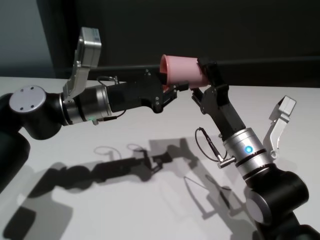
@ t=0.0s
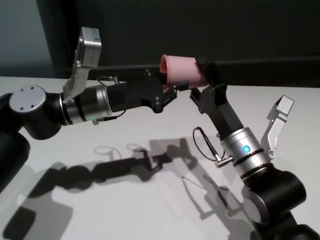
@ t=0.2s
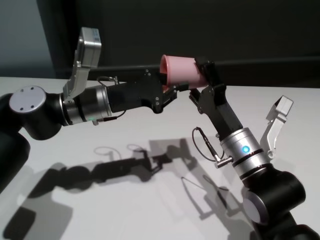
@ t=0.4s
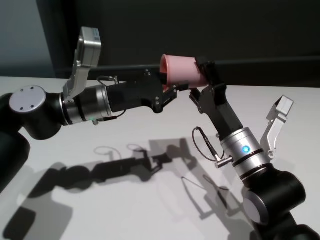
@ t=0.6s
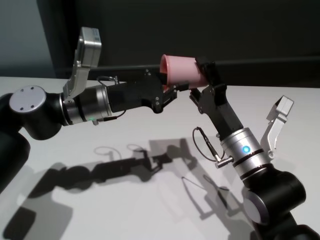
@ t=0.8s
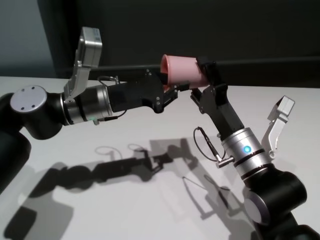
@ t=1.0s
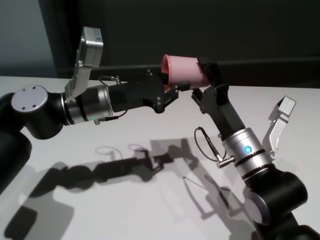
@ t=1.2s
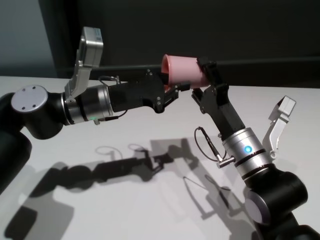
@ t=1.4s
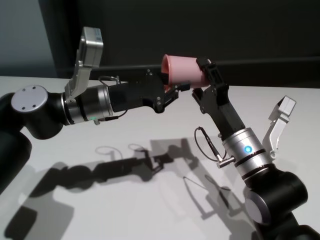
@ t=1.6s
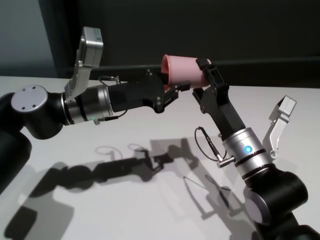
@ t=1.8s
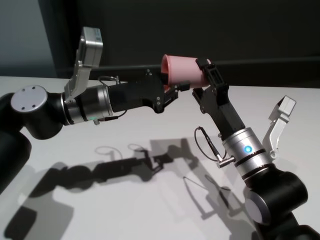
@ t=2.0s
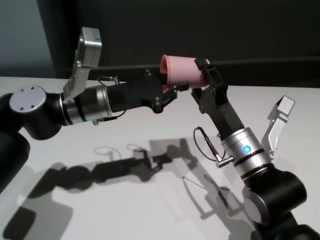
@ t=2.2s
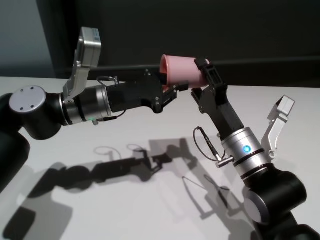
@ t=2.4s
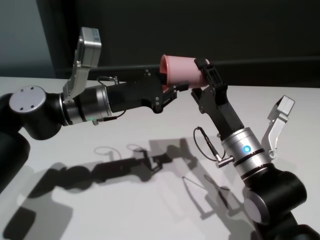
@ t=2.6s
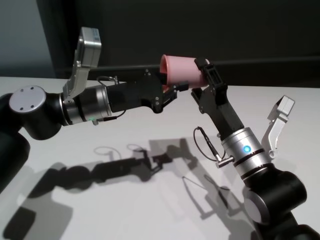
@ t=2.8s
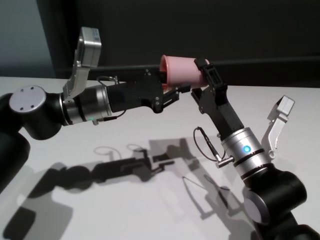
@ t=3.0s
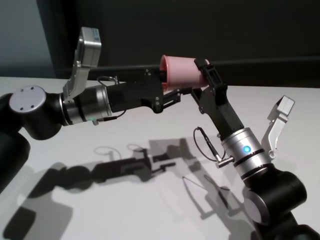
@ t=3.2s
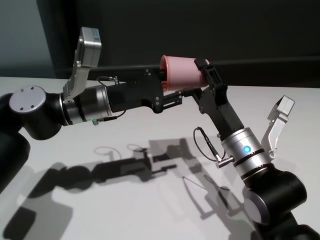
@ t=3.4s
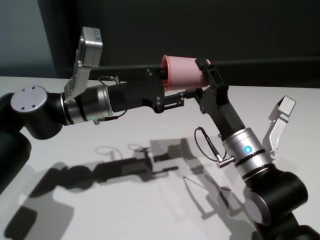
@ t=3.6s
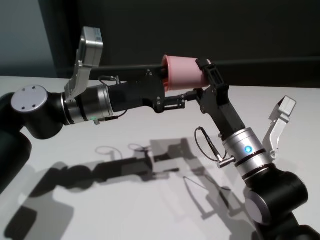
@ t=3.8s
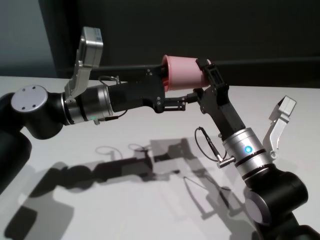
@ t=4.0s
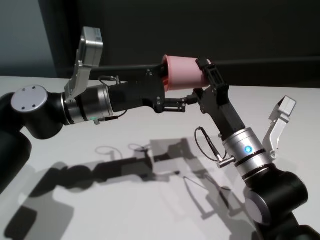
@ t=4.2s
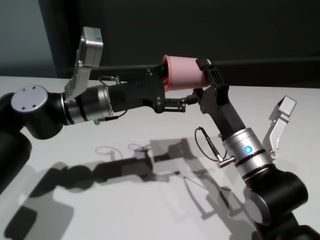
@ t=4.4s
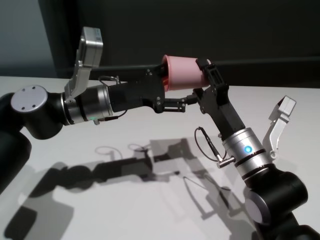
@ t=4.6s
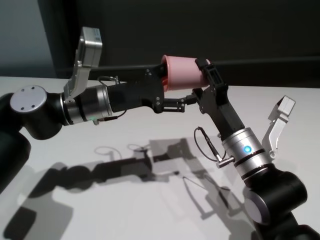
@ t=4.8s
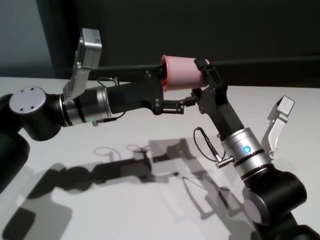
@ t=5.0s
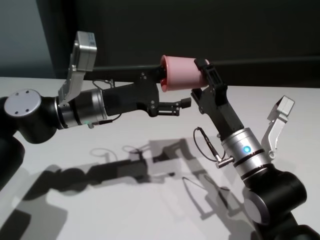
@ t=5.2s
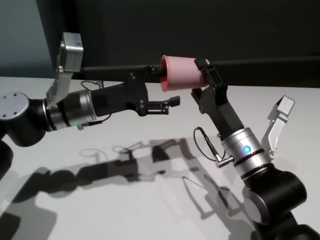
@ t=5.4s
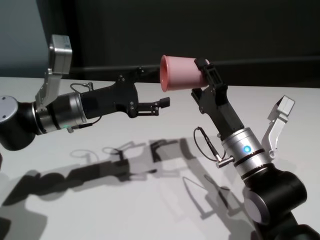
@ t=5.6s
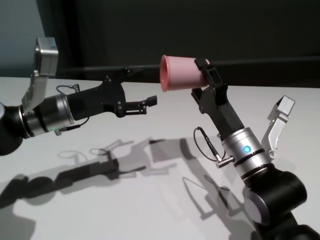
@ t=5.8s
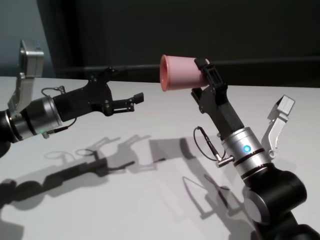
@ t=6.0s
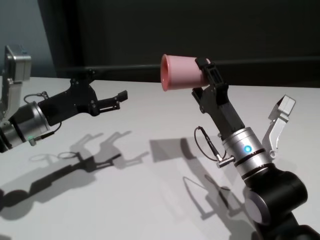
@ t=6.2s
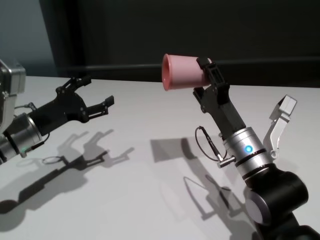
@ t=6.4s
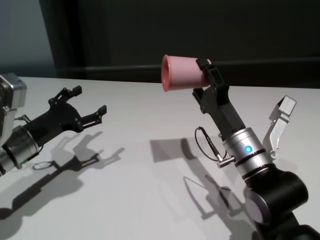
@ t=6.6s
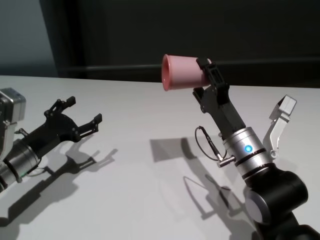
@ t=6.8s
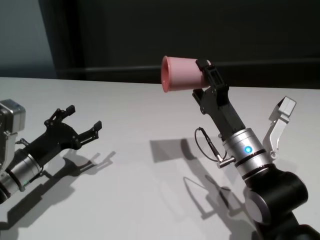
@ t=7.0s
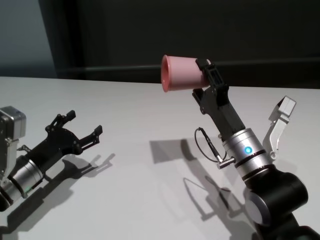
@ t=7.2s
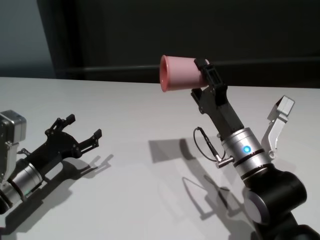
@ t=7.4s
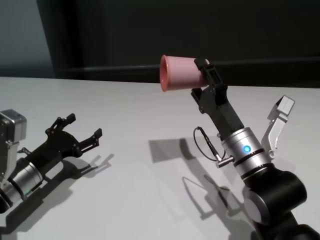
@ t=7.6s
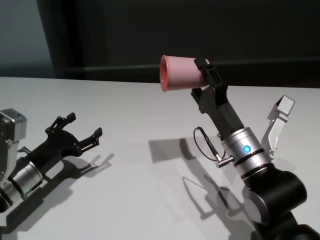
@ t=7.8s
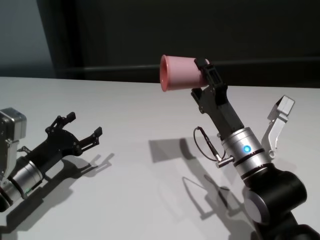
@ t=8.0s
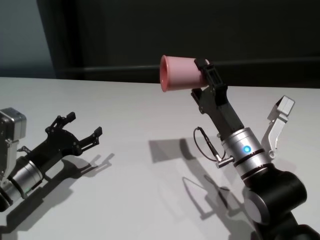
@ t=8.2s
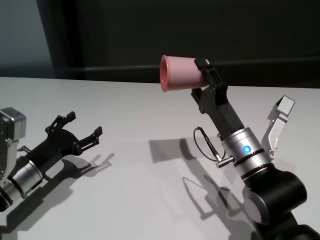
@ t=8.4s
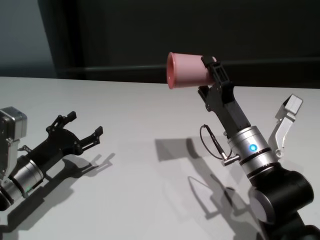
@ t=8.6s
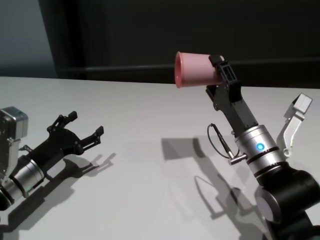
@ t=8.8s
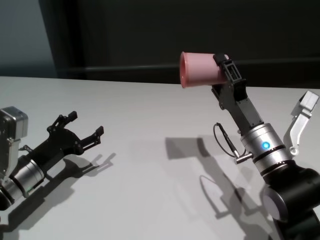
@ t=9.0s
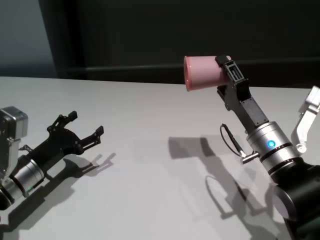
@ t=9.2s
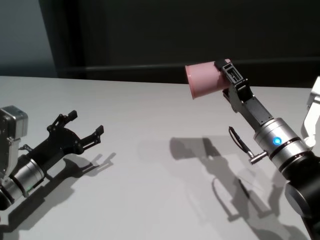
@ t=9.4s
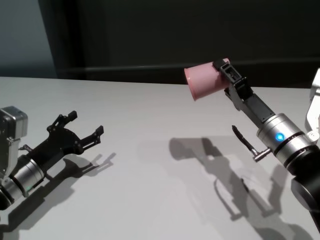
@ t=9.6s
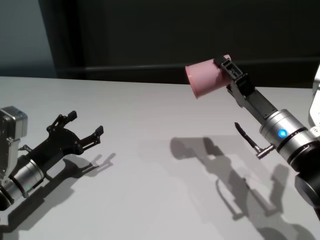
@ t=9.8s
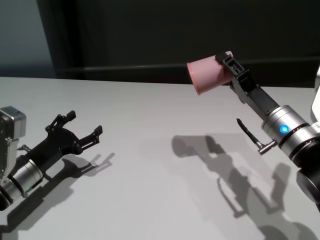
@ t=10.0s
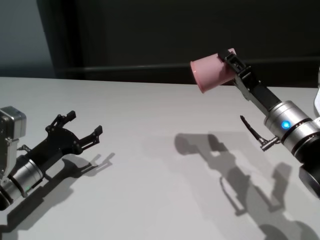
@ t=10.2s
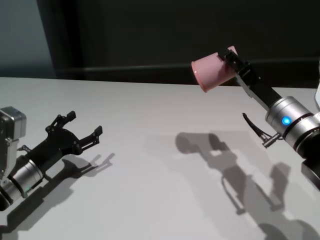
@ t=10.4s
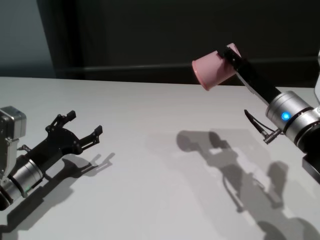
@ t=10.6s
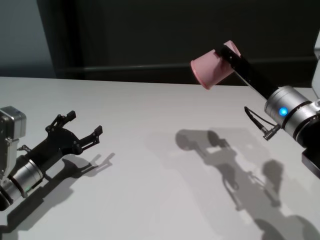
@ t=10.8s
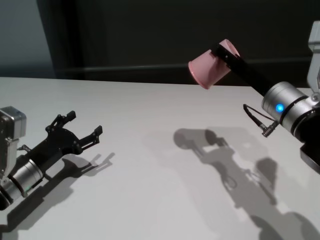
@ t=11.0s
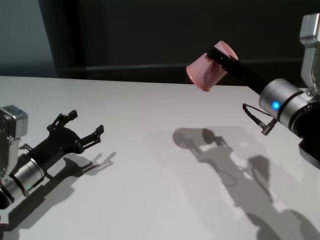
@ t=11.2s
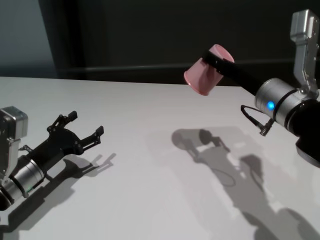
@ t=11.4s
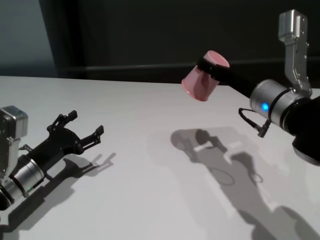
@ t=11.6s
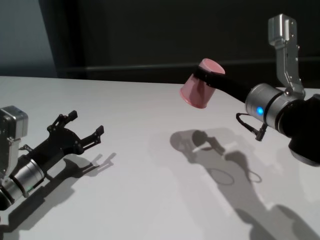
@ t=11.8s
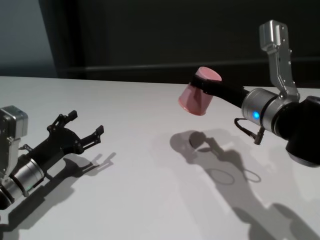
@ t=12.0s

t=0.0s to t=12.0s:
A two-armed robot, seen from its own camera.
Task of the whole recording: On the white table pick up the cup with one hand and transfer it to the other hand before turning it over.
Step, t=0.0s to t=5.4s: Pass the cup to the right gripper.

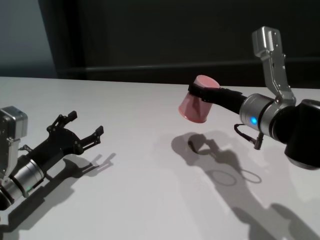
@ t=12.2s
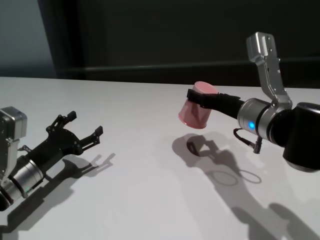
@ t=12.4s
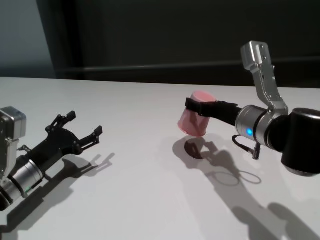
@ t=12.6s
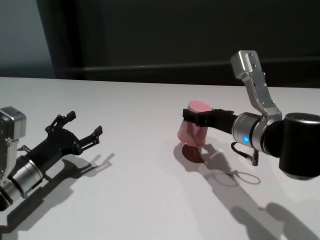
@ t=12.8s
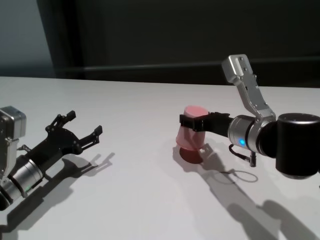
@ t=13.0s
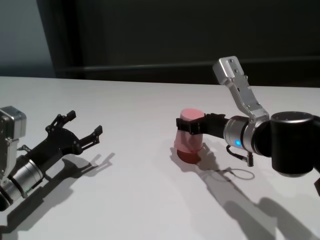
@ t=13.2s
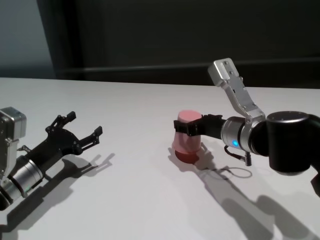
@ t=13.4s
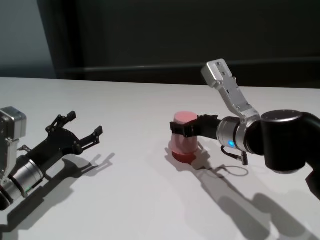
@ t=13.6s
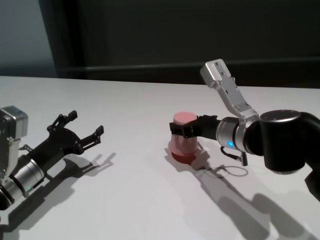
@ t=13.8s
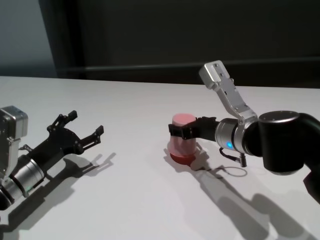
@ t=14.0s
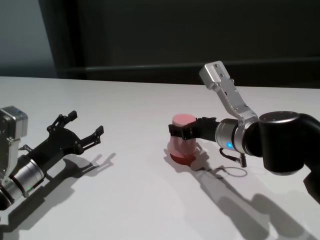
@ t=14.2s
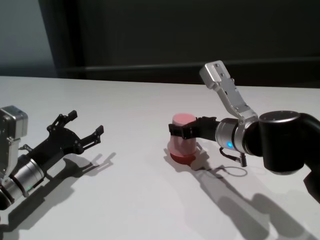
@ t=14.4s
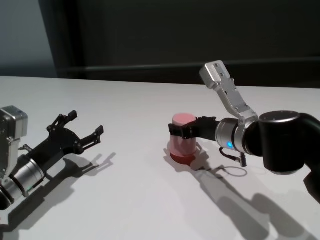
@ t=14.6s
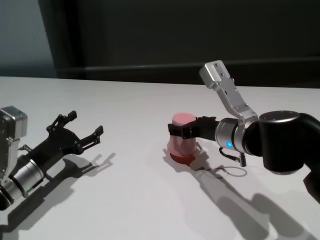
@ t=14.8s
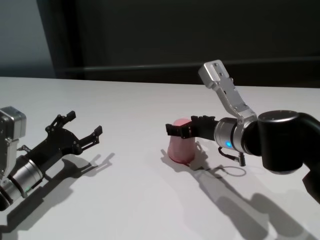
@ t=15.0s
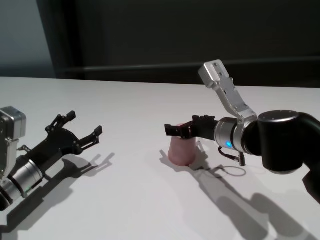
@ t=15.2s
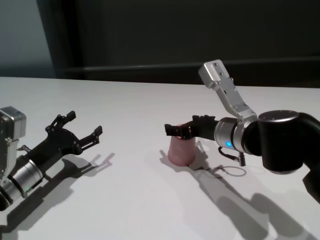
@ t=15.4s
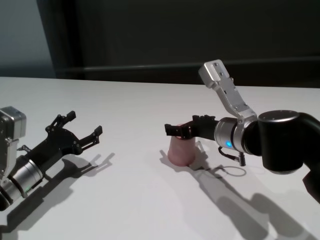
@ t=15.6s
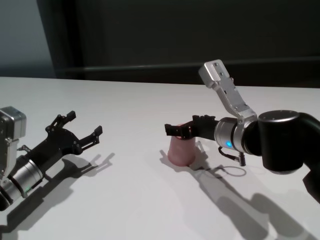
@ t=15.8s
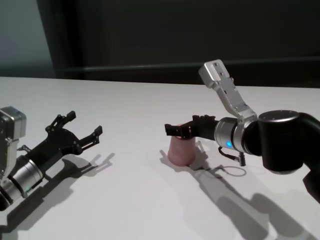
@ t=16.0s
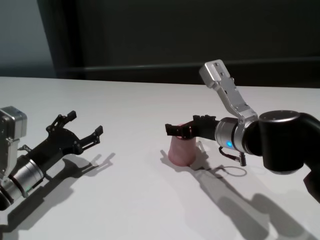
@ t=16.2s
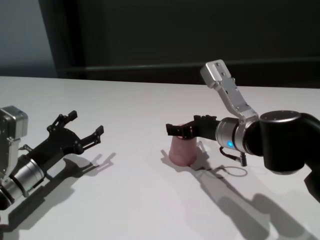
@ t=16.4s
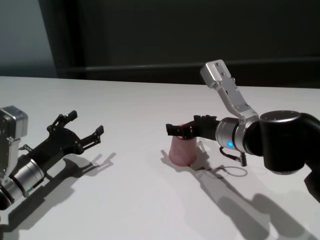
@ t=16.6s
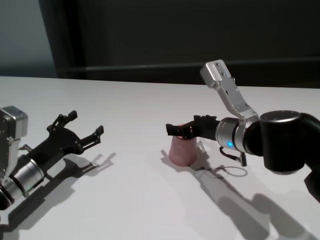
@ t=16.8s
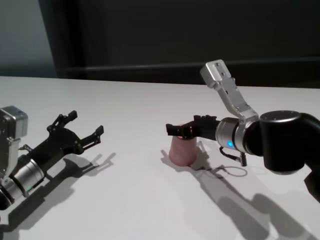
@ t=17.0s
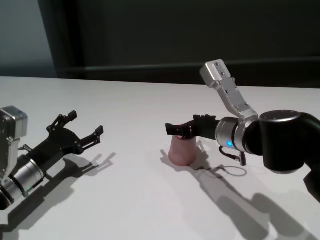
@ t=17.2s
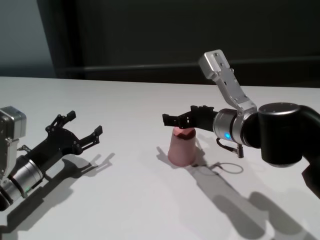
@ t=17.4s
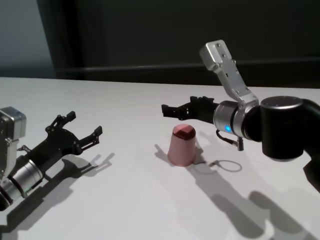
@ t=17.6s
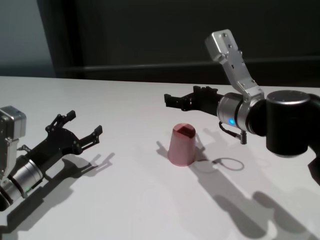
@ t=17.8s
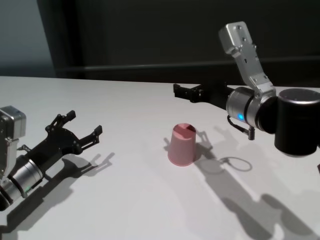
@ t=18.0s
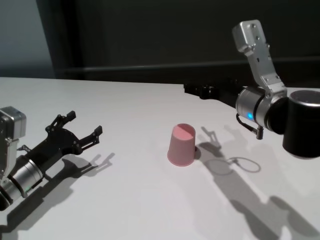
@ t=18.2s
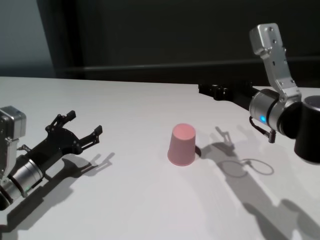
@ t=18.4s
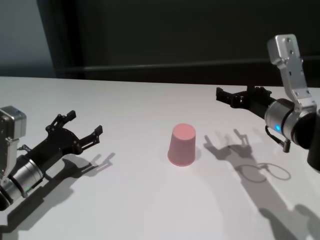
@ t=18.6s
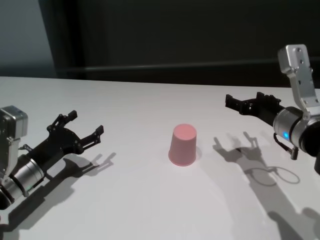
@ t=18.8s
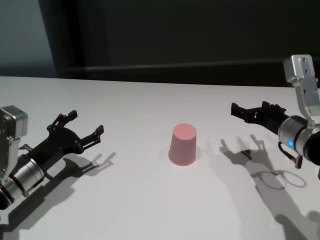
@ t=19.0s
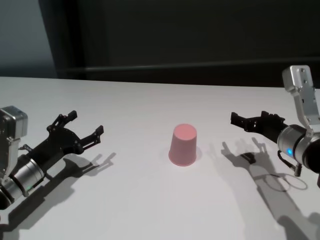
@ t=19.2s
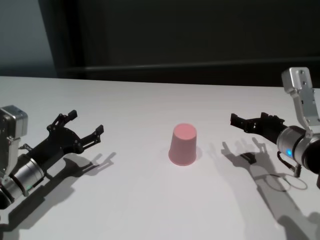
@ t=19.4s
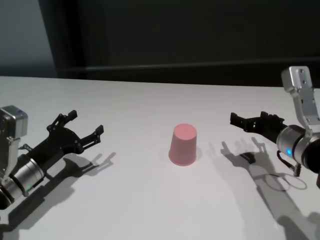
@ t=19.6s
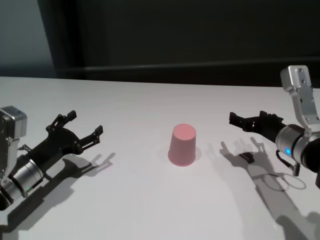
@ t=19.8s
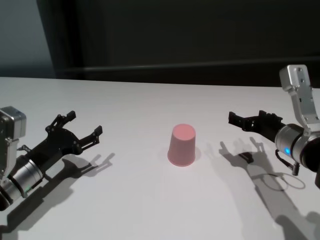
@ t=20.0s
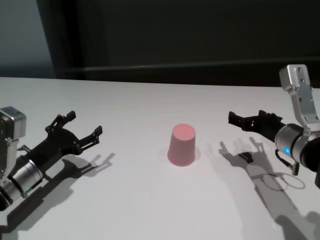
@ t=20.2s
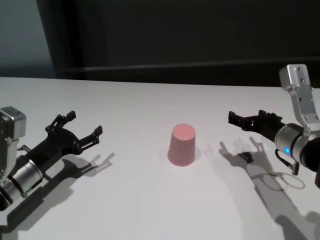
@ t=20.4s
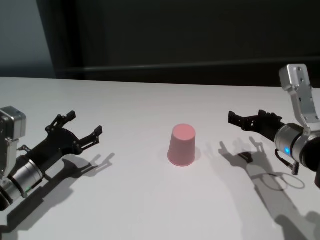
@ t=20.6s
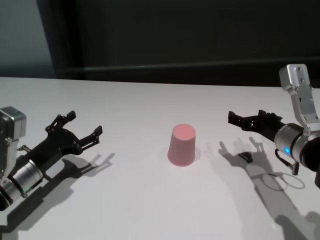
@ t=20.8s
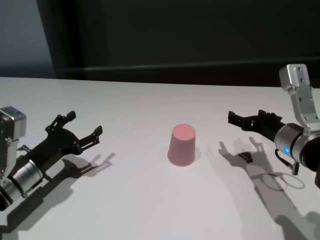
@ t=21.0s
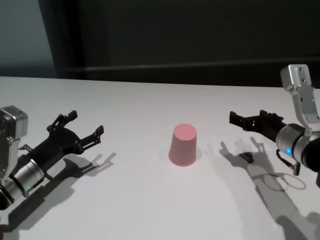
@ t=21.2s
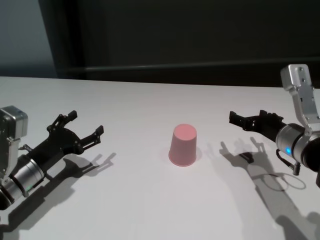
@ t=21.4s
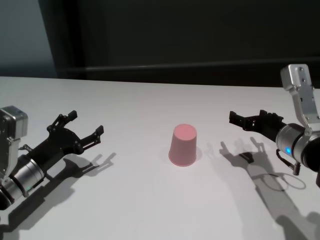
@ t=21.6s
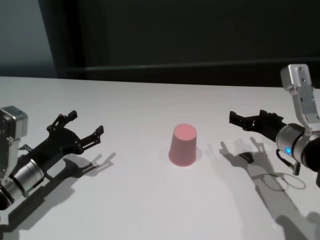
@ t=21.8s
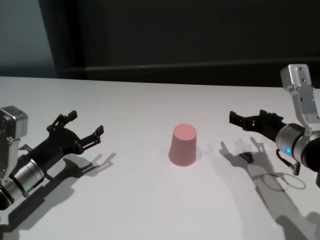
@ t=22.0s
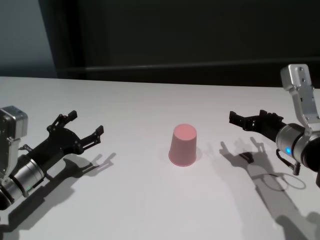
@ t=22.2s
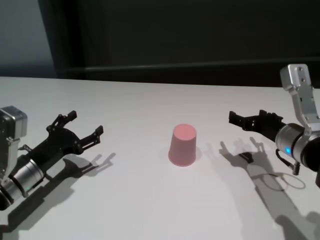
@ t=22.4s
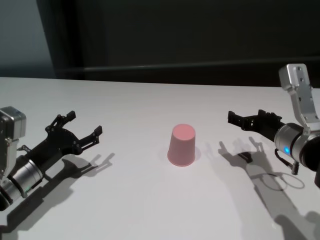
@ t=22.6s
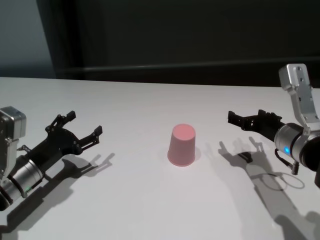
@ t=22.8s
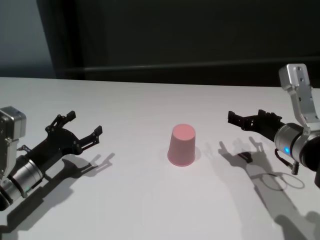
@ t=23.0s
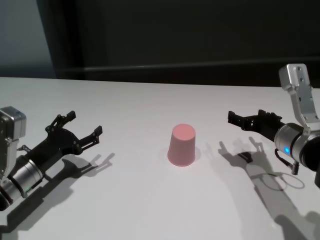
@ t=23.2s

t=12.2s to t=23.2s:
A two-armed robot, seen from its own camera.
Task of the whole recording: On the white table pick up the cup with one hand and transfer it to the other hand before turning it over.
Step, t=12.2s to t=15.2s: Place the cup on the table with right gripper.
